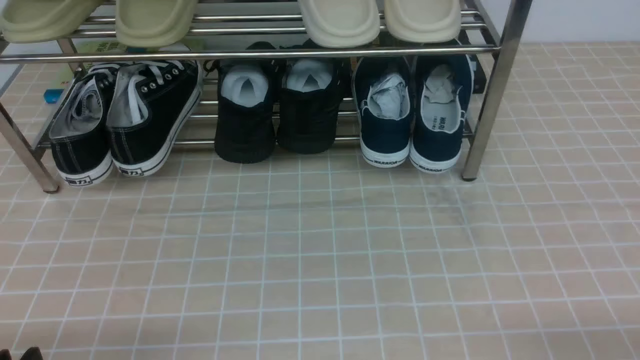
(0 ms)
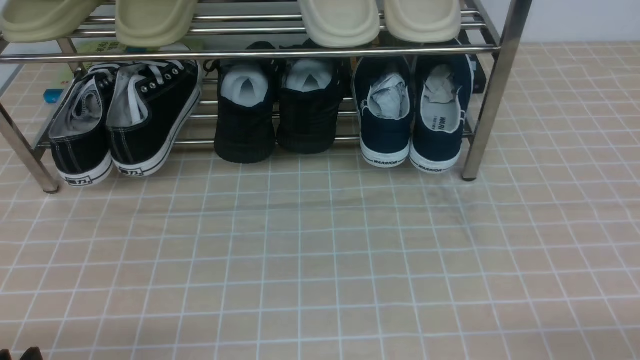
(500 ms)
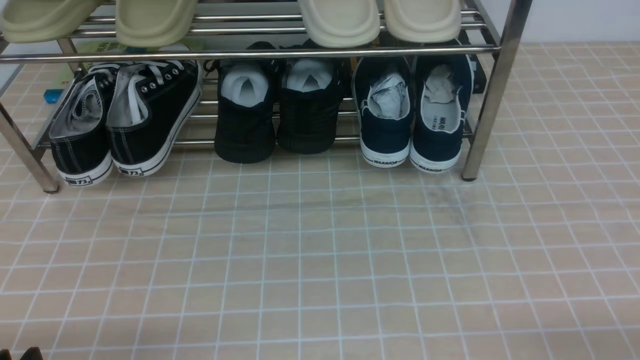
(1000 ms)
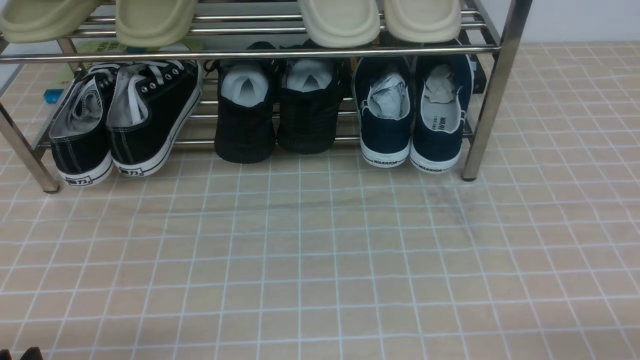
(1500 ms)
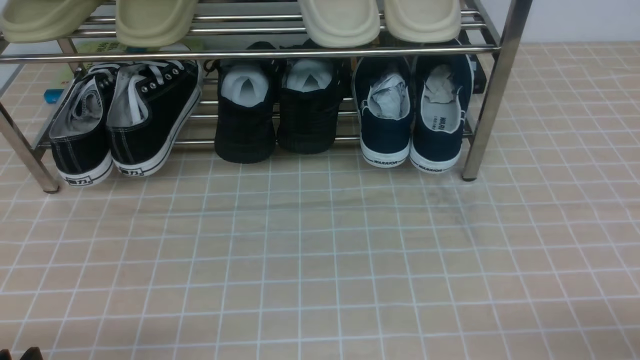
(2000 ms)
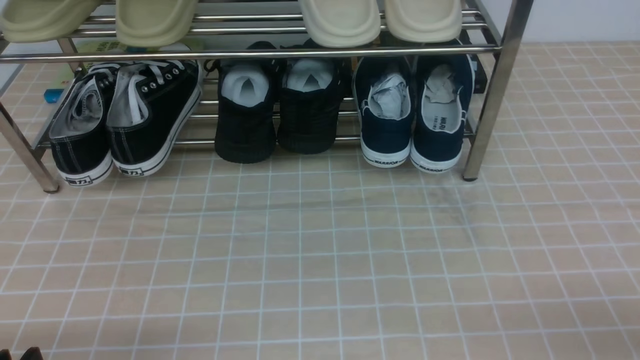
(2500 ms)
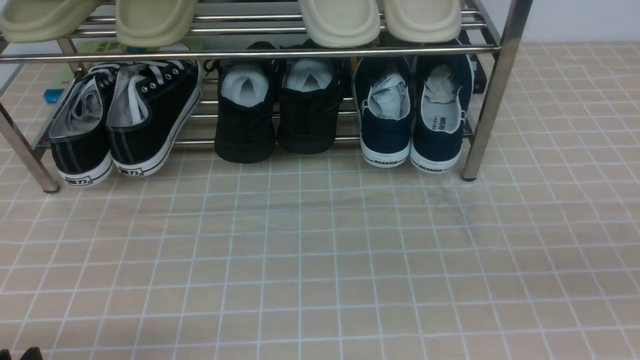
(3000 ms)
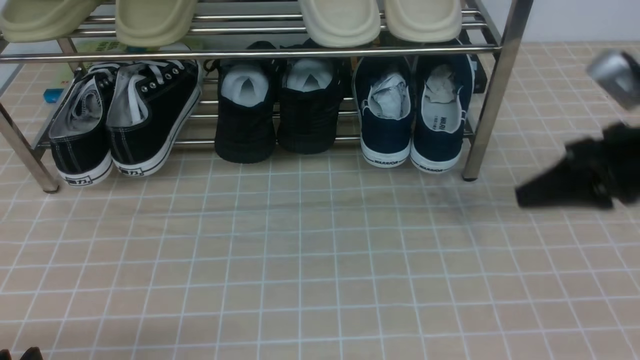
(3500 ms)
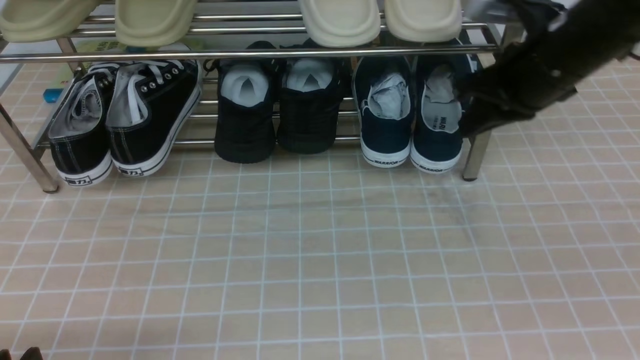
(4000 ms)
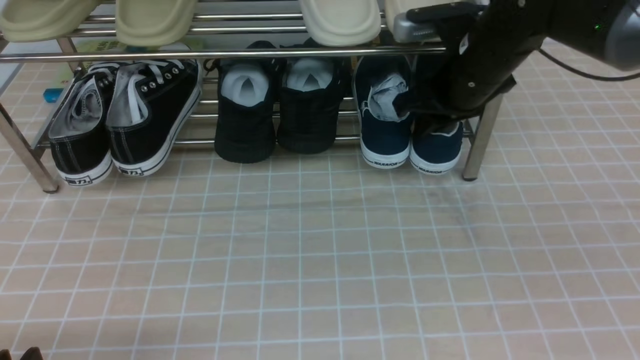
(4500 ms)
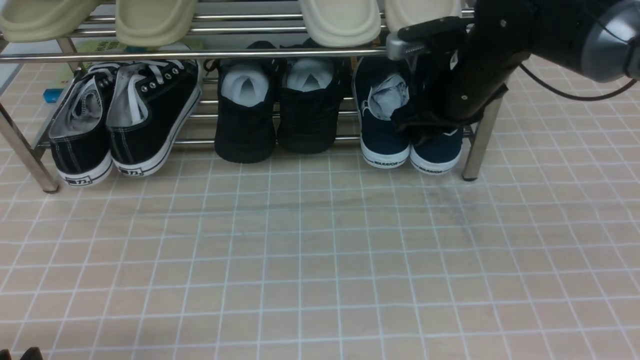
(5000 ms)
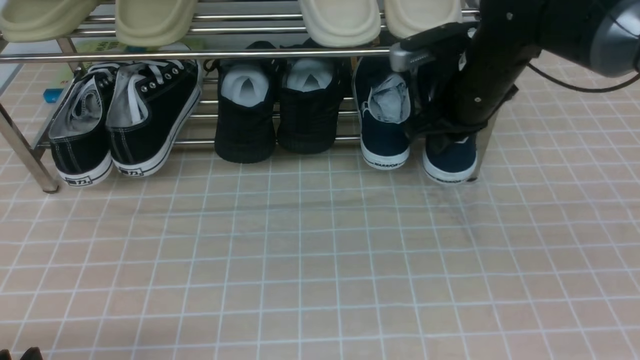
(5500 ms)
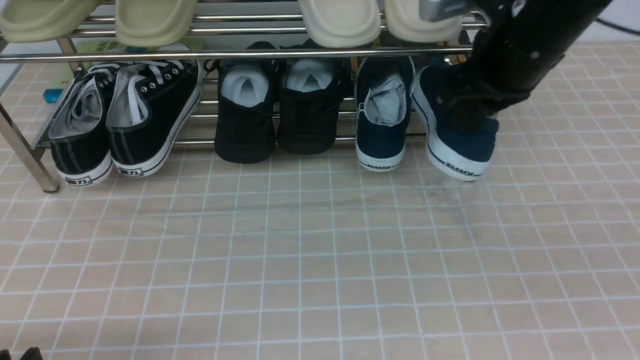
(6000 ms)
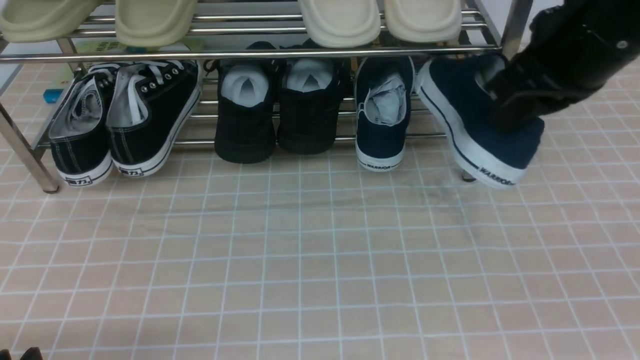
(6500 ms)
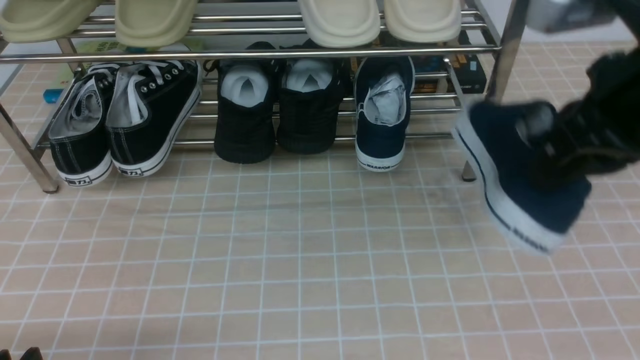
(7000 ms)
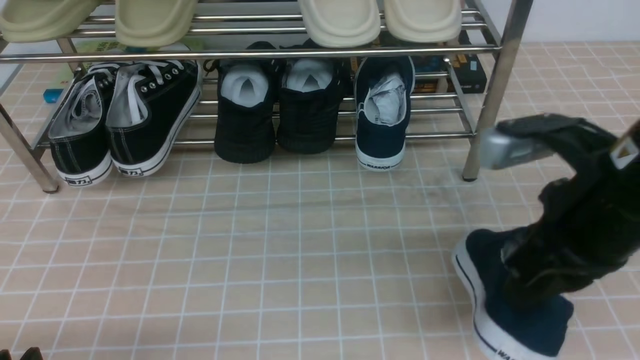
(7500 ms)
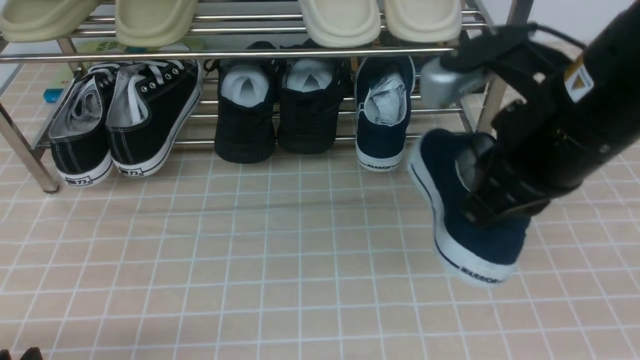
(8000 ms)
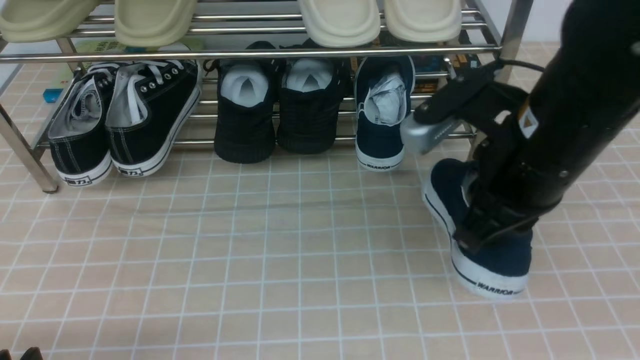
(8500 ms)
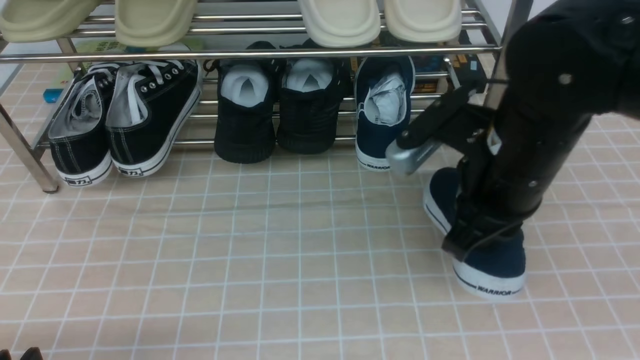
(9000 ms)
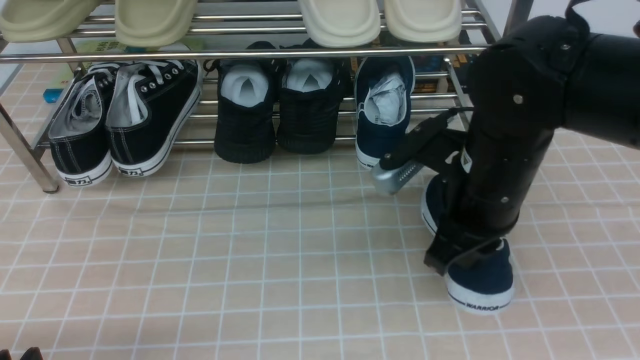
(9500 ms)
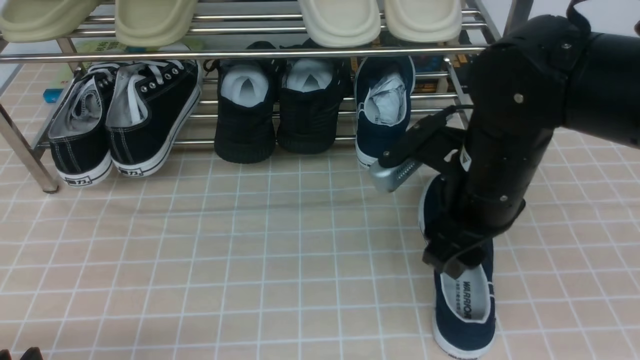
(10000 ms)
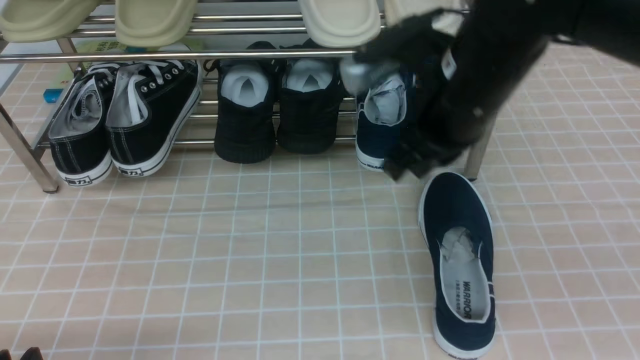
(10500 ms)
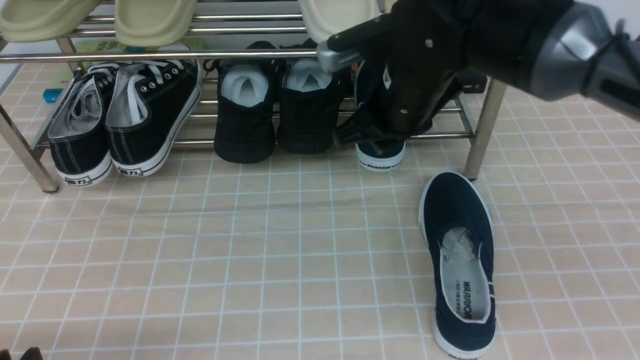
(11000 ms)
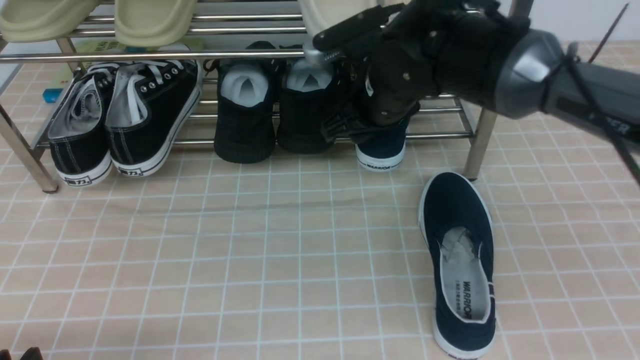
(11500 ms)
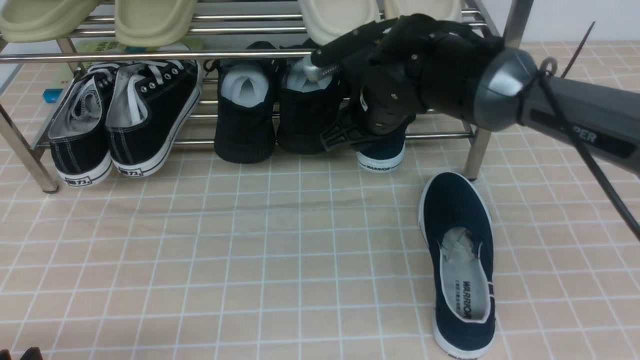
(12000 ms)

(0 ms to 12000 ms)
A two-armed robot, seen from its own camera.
Step, 0 ms - 5000 ms: use the right arm to clamp a shoe on the right side of the shoe rack.
Step, 5500 ms - 9500 ms: use the right arm to take out the clamped shoe from the shoe rack and put it down.
Step, 10000 ms - 12000 ms: use the right arm to clamp a shoe on the right side of the shoe rack.
2000 ms - 4000 ms: The right gripper moves forward and upward, some 35 cm, and closes up.
4000 ms - 6000 ms: The right gripper opens, then closes once more.
6000 ms - 8000 ms: The right gripper heads backward, covering approximately 15 cm.
8000 ms - 10000 ms: The right gripper is displaced downward and forward by roughly 10 cm, and opens.
10000 ms - 12000 ms: The right gripper heads forward and to the left, covering about 15 cm, and closes, then opens again.

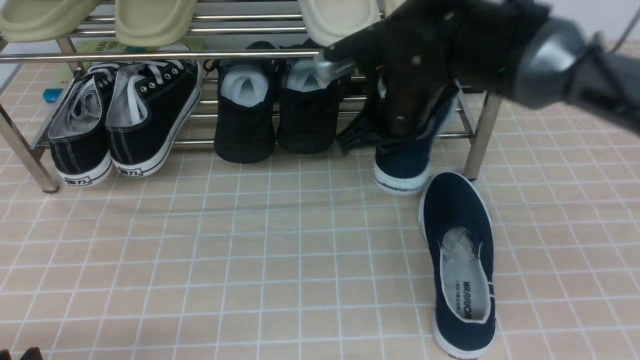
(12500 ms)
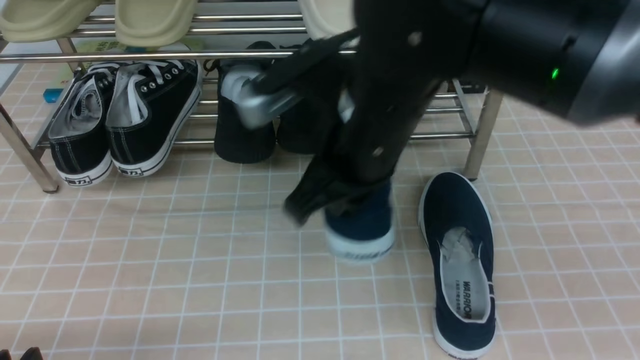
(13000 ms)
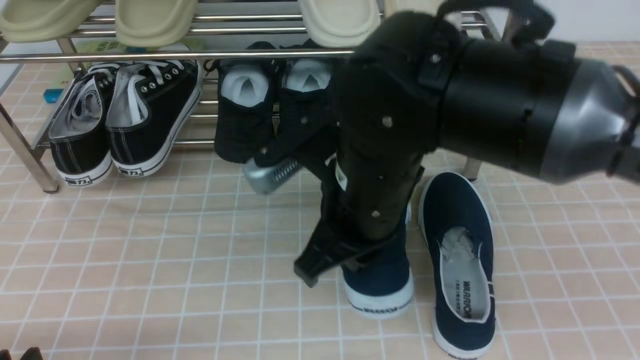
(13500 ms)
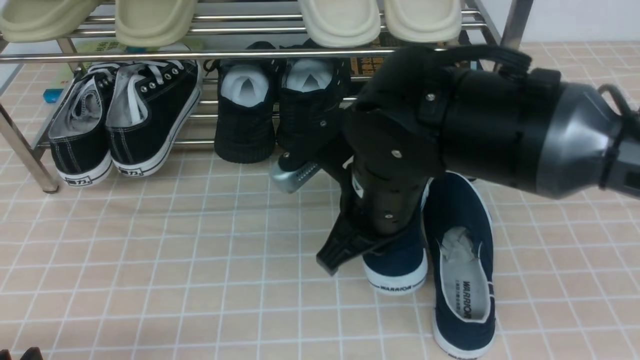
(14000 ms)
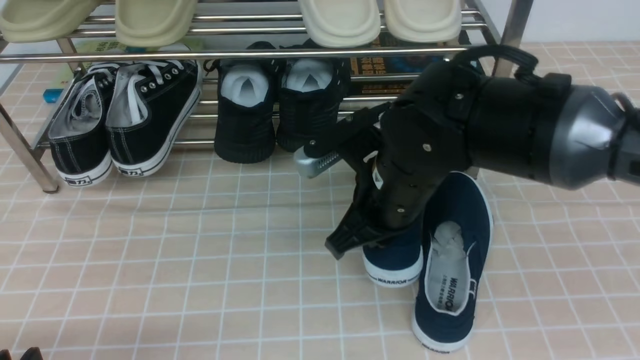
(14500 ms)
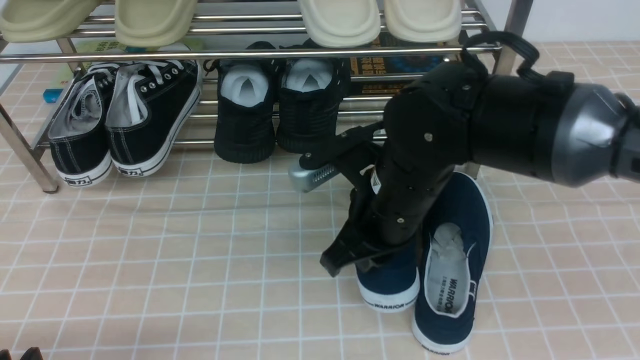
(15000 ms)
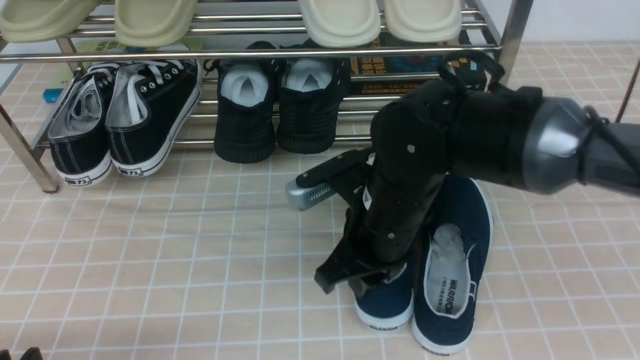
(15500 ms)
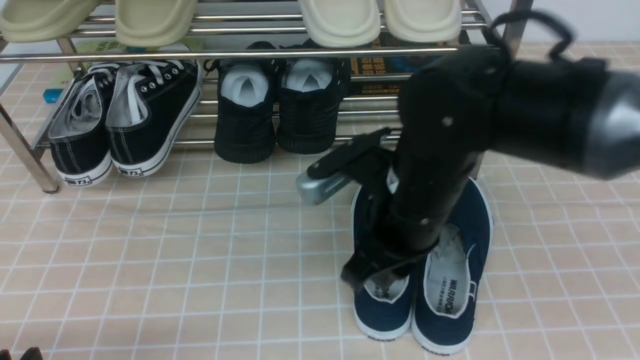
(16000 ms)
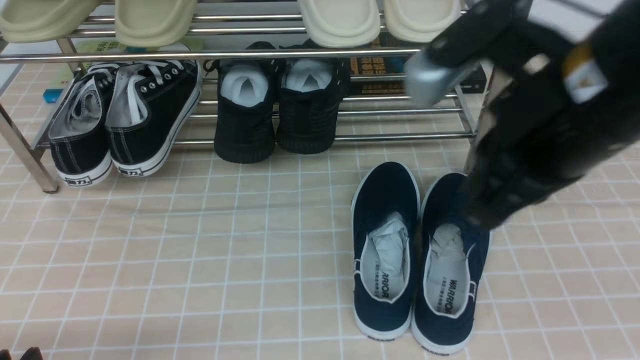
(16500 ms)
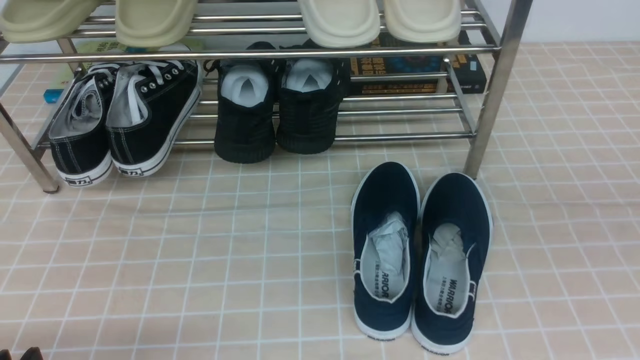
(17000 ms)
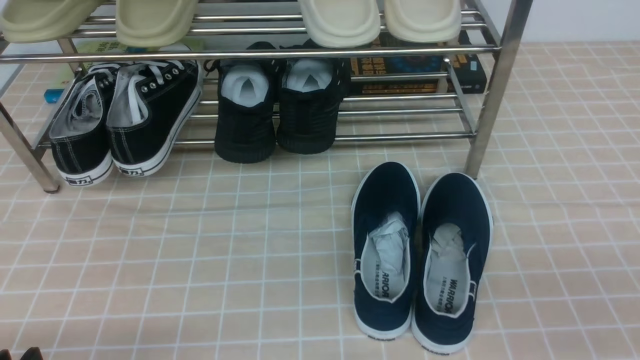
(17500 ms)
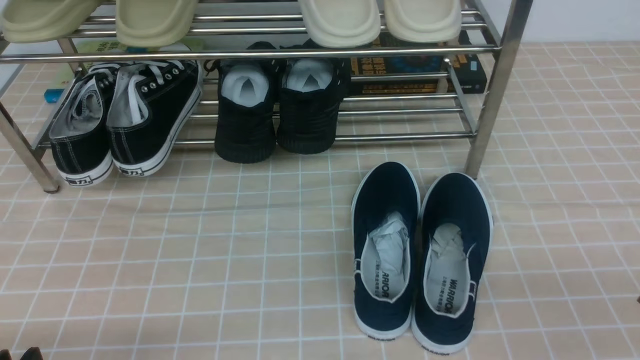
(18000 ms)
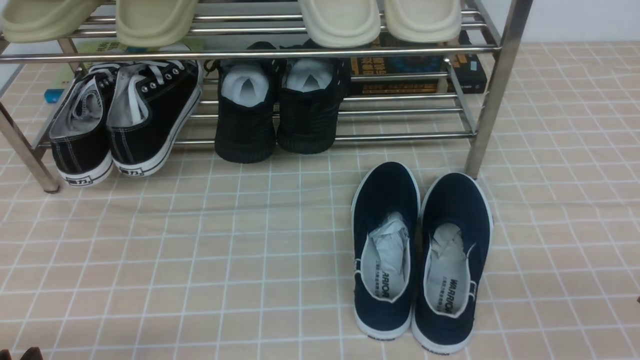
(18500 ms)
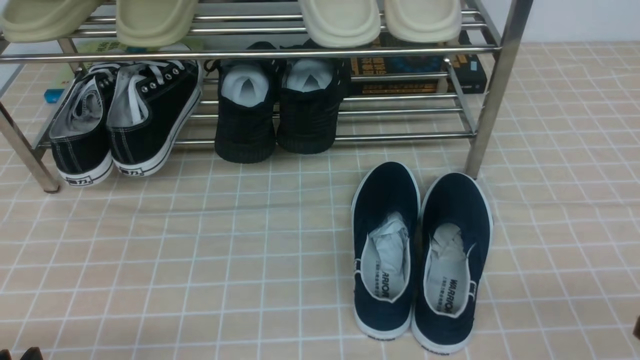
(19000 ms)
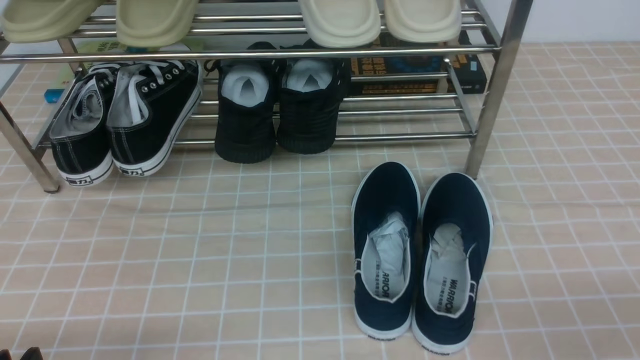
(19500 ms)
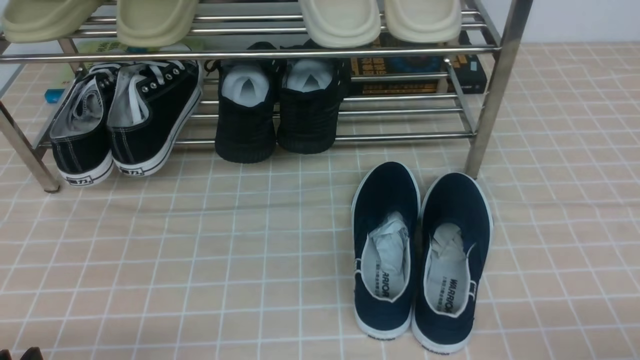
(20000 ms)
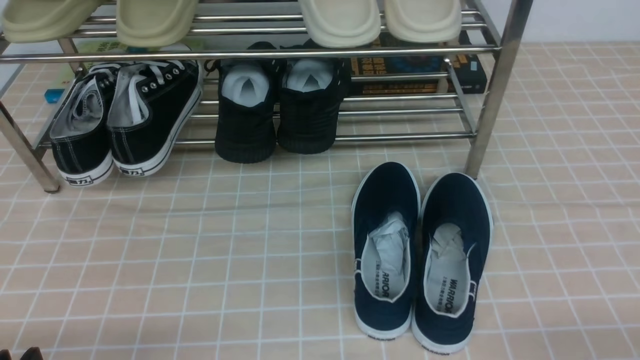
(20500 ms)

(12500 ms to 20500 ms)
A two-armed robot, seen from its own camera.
Step, 12500 ms - 15500 ms: use the right arm to take out the clamped shoe from the shoe rack and put it down.
12500 ms - 14500 ms: The right gripper moves backward, roughly 5 cm.
14500 ms - 16500 ms: The right gripper shifts roughly 20 cm upward, backward and to the right.
16500 ms - 18500 ms: The right gripper travels backward, to the right and downward by about 25 cm.
